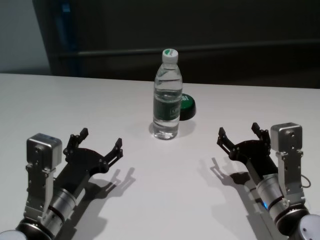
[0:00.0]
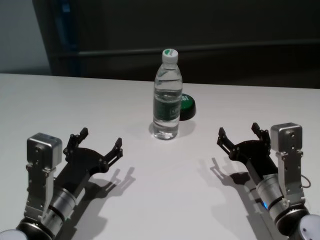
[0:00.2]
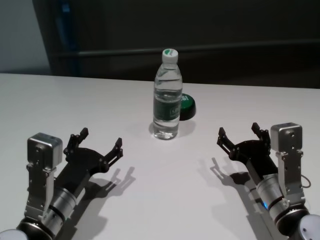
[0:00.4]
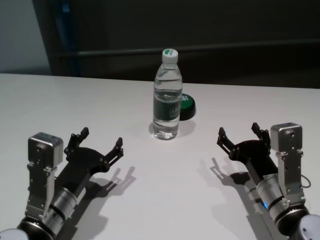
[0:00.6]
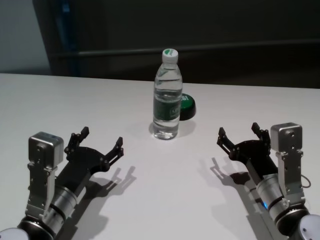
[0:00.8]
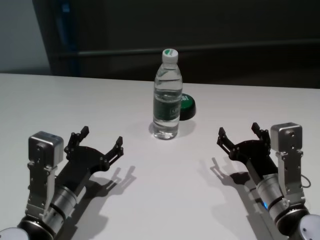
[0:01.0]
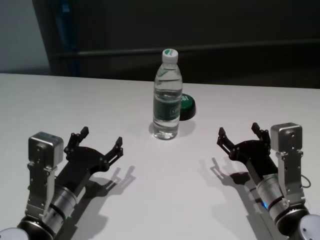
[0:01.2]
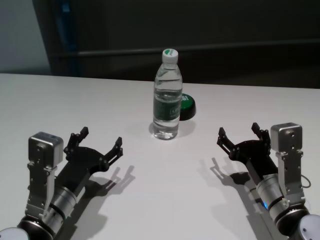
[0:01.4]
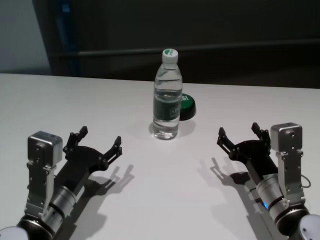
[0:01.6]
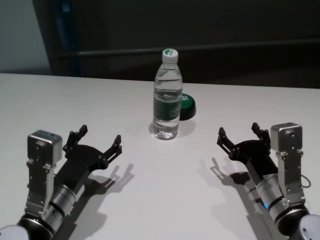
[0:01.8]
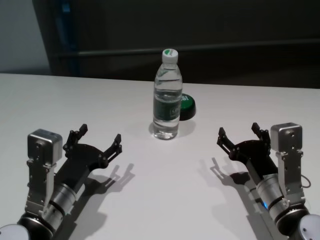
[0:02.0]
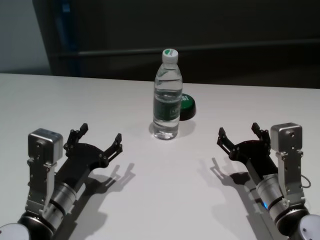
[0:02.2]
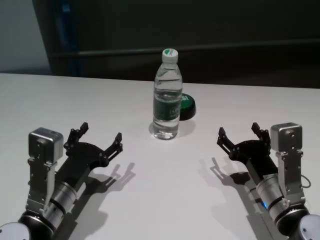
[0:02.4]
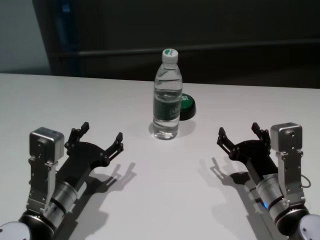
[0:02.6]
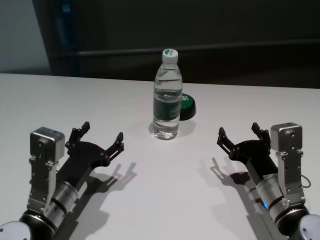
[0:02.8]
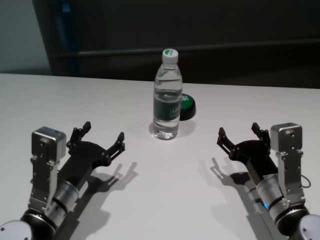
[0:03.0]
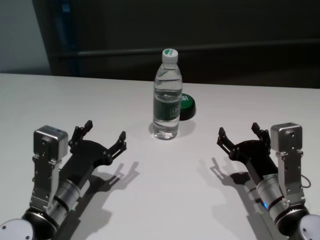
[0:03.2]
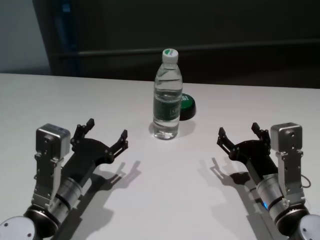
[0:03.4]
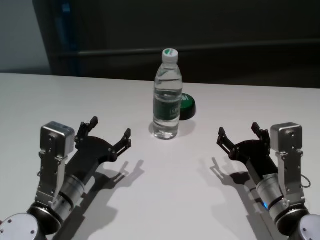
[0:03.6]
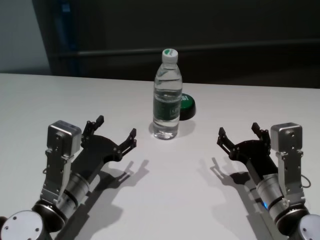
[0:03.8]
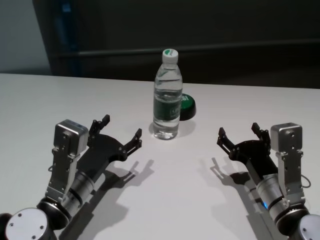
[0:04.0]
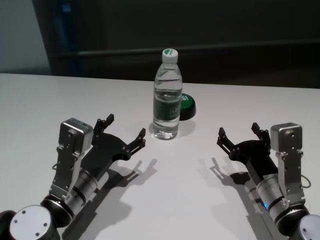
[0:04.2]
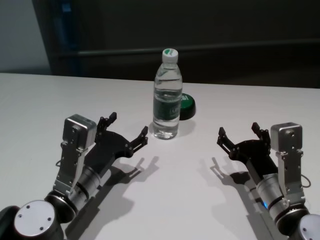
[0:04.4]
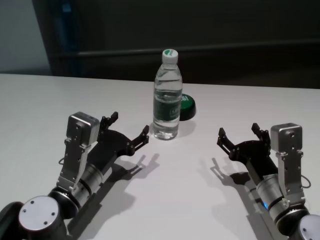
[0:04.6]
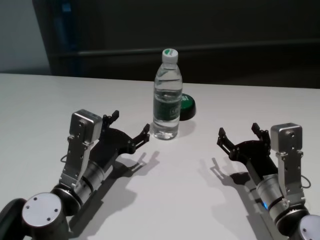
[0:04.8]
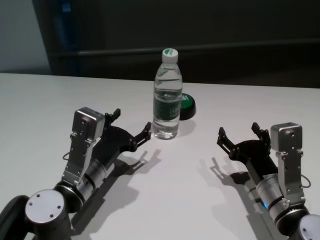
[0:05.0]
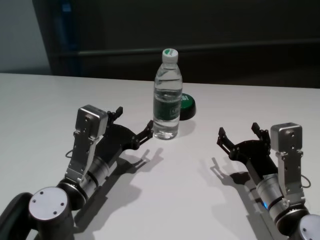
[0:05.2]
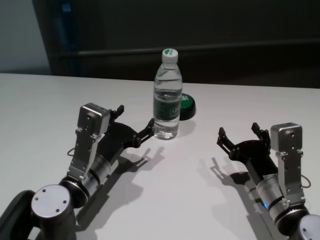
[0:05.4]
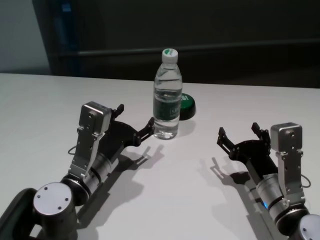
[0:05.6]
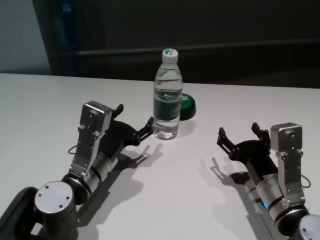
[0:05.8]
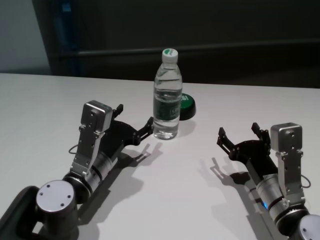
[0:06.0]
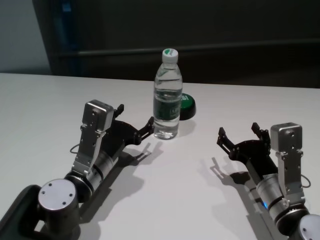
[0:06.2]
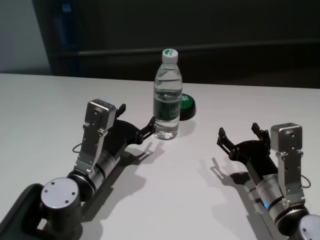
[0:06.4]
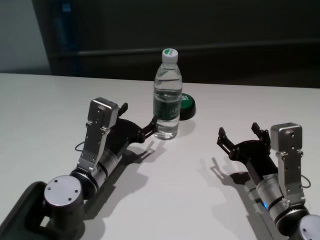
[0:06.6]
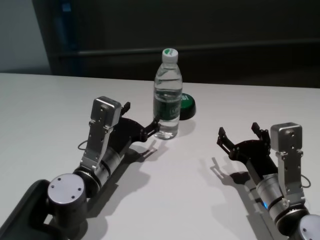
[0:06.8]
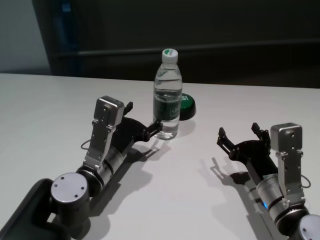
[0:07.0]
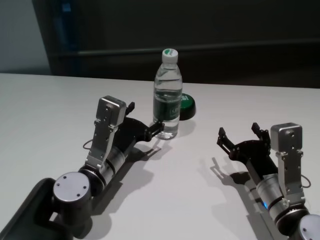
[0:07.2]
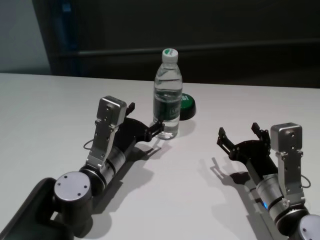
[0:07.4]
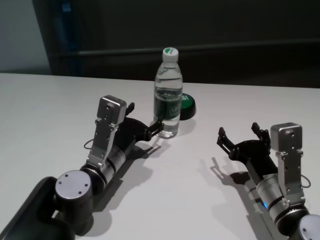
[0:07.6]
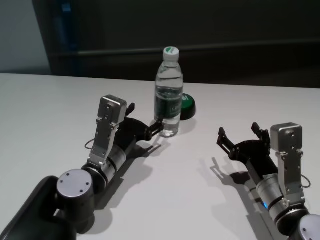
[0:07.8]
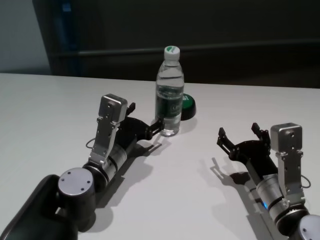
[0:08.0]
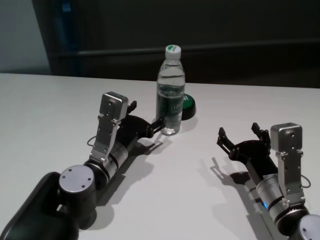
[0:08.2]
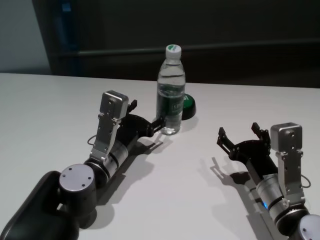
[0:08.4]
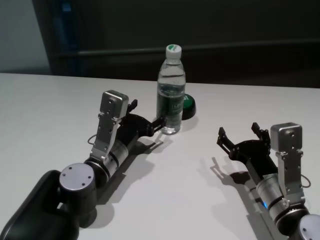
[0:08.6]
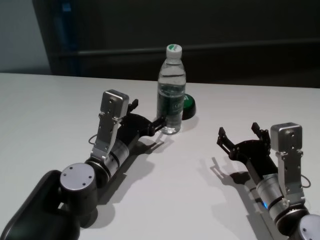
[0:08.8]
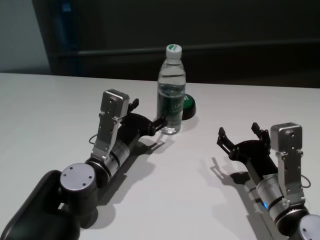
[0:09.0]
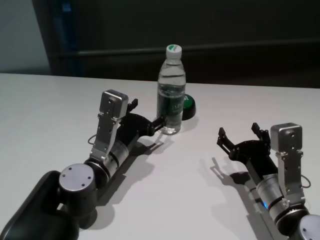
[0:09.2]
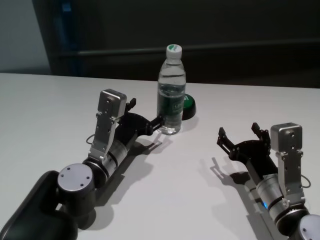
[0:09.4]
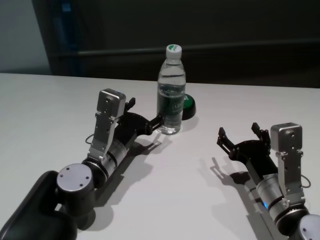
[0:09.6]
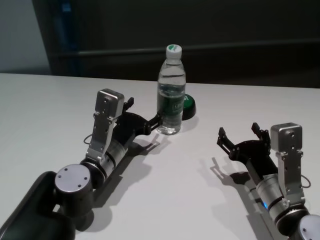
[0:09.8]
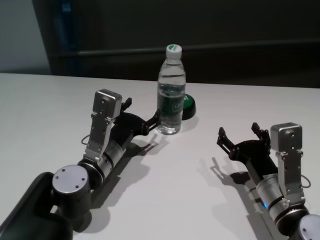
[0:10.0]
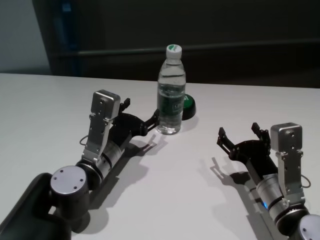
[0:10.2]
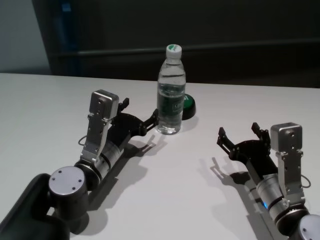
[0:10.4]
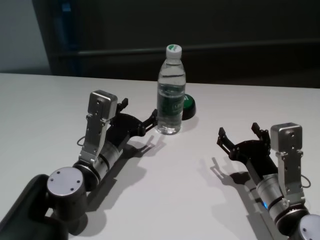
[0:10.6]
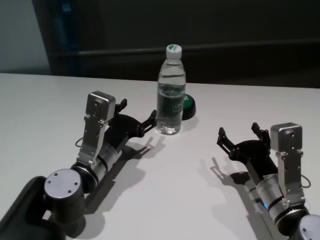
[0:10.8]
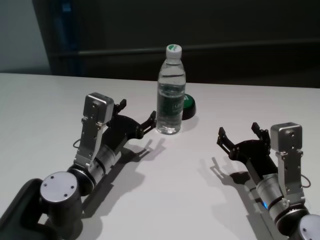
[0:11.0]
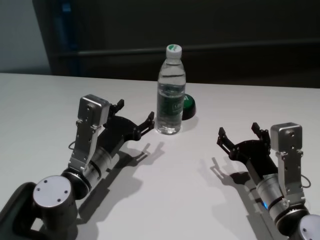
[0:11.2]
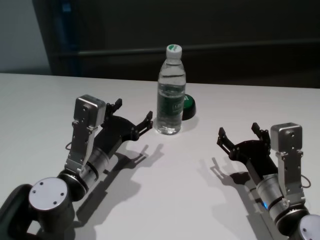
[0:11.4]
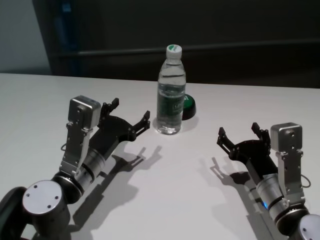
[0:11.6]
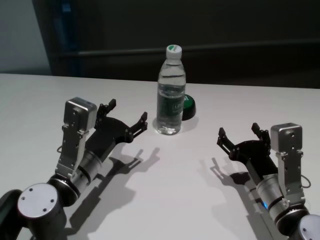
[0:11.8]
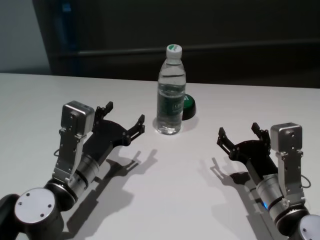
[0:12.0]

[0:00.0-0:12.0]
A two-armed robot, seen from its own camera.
Task of the whole recording: return to a safe position after touching an obstacle with your arm on the white table.
Step, 0:00.0 to 0:10.6: Touch the bottle with left gripper.

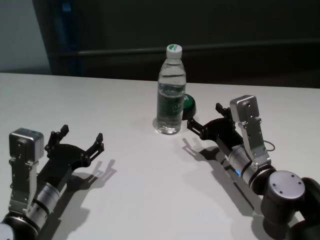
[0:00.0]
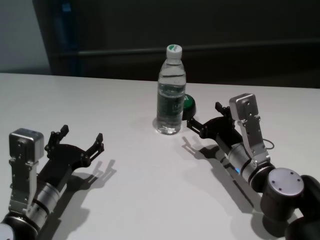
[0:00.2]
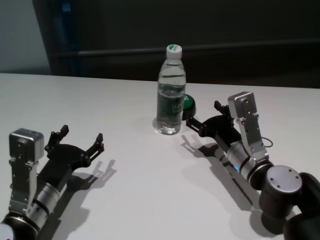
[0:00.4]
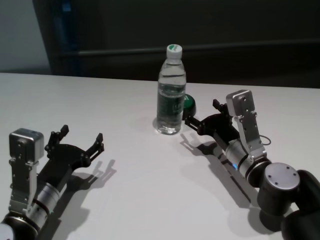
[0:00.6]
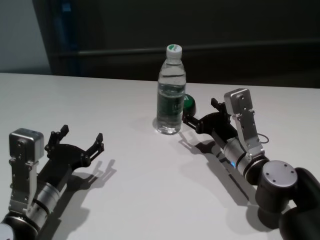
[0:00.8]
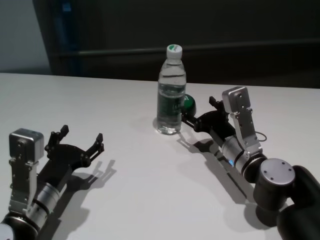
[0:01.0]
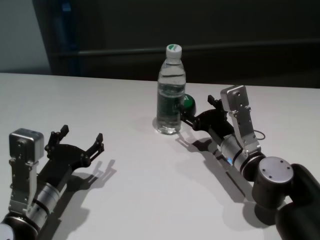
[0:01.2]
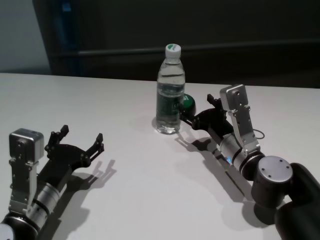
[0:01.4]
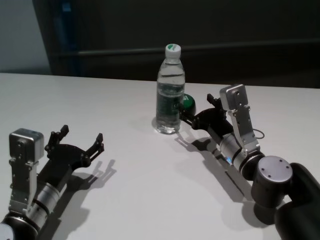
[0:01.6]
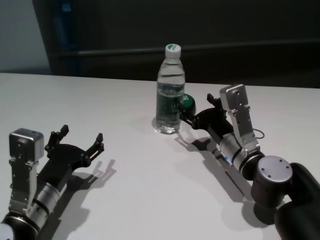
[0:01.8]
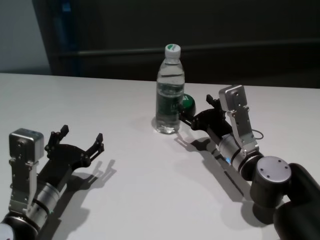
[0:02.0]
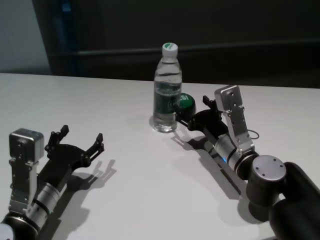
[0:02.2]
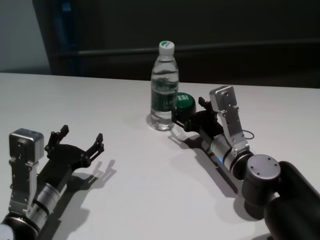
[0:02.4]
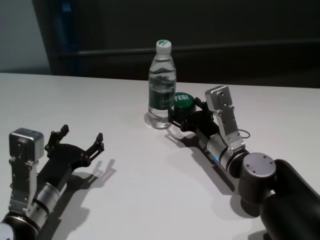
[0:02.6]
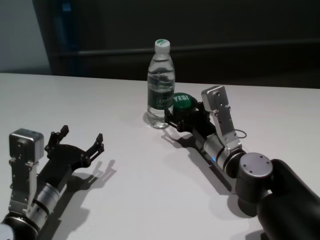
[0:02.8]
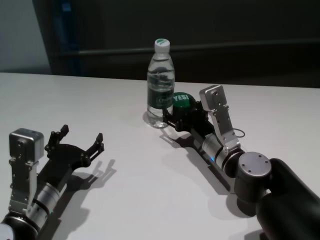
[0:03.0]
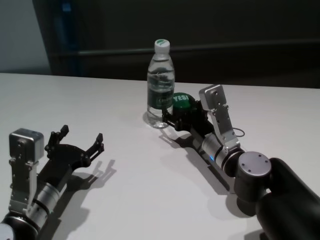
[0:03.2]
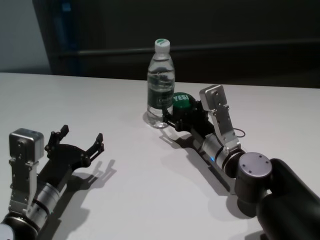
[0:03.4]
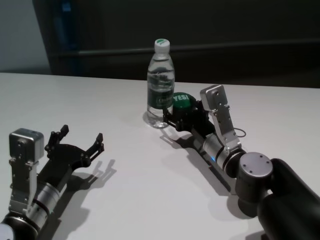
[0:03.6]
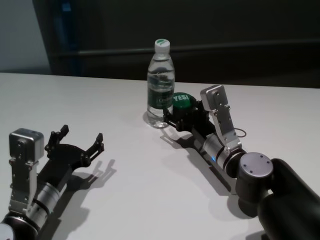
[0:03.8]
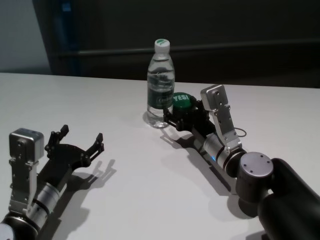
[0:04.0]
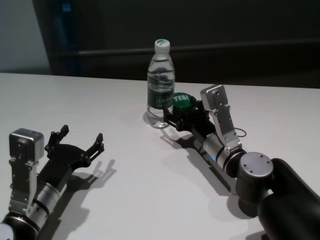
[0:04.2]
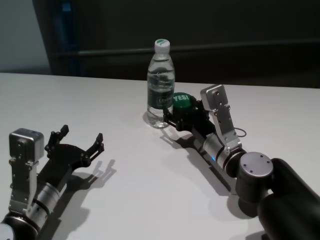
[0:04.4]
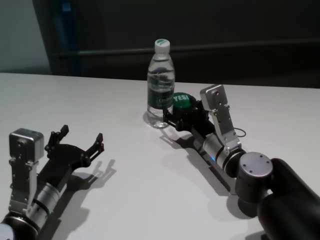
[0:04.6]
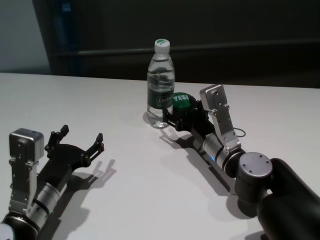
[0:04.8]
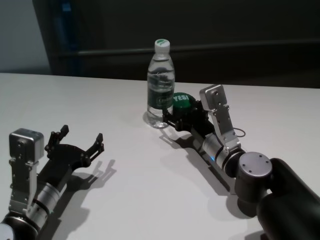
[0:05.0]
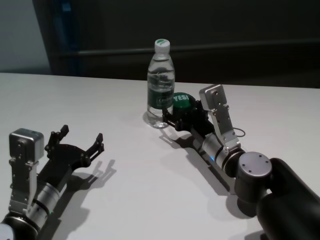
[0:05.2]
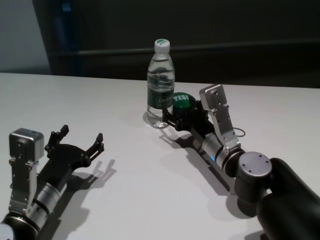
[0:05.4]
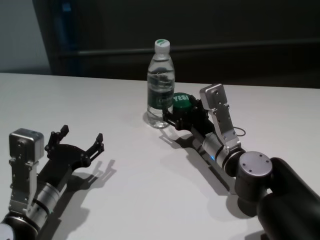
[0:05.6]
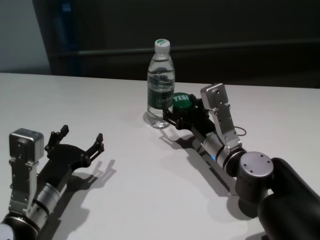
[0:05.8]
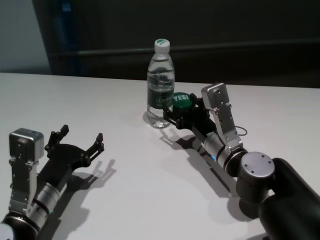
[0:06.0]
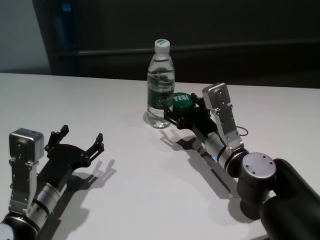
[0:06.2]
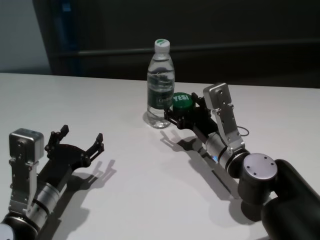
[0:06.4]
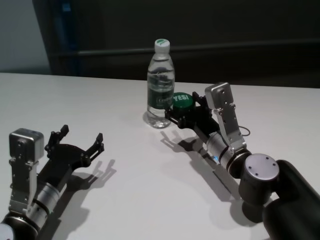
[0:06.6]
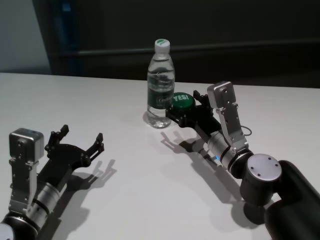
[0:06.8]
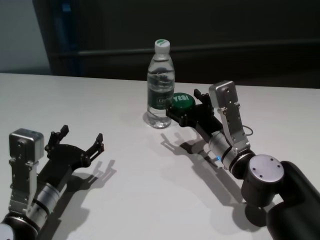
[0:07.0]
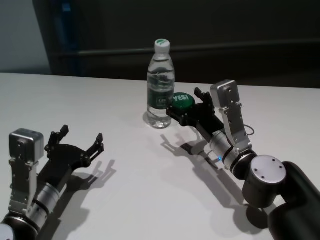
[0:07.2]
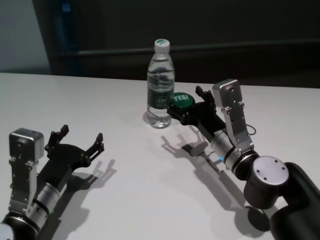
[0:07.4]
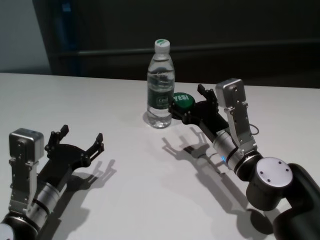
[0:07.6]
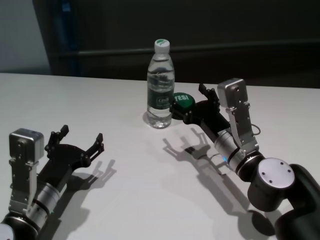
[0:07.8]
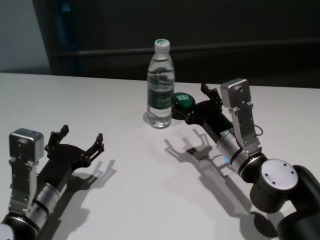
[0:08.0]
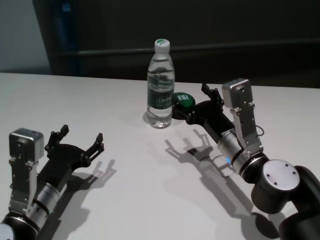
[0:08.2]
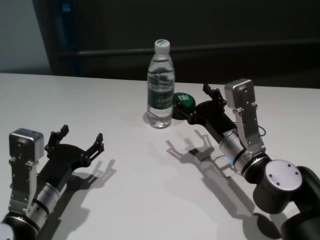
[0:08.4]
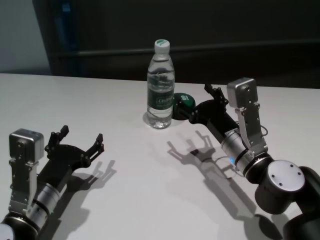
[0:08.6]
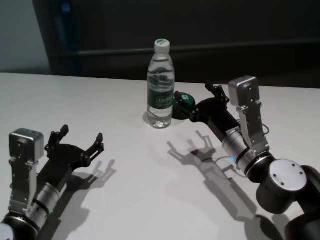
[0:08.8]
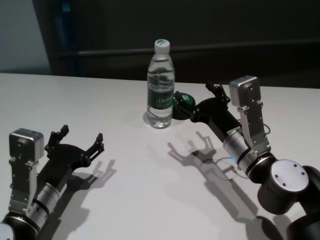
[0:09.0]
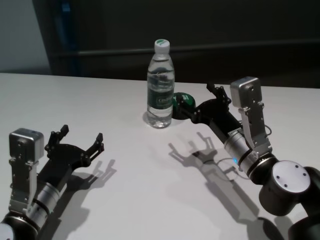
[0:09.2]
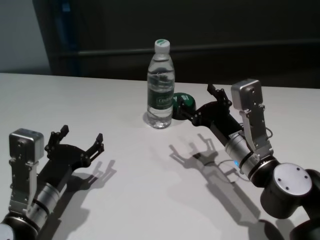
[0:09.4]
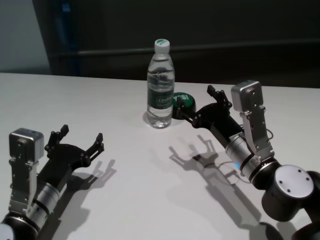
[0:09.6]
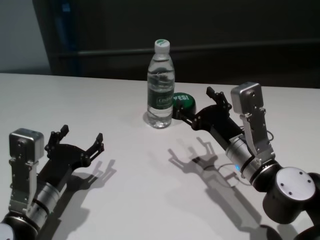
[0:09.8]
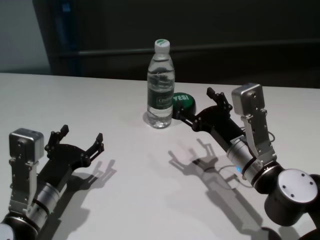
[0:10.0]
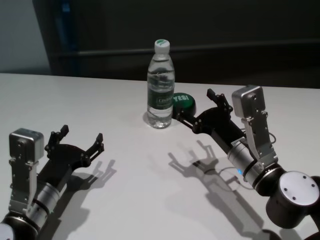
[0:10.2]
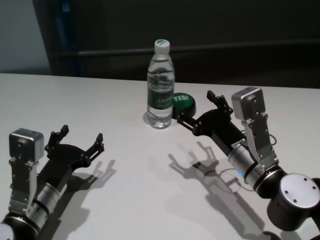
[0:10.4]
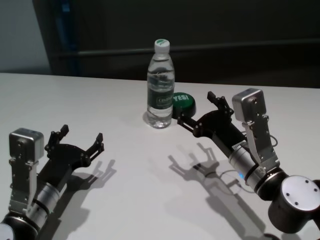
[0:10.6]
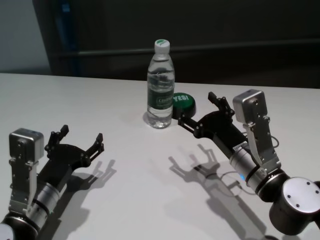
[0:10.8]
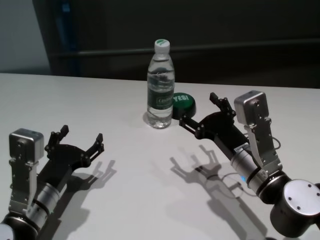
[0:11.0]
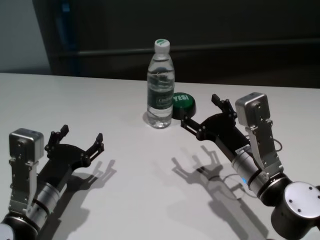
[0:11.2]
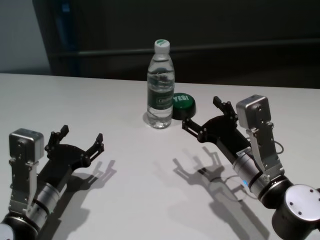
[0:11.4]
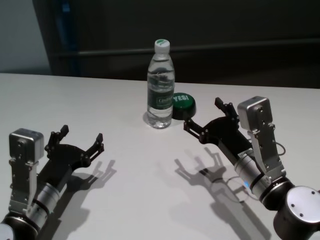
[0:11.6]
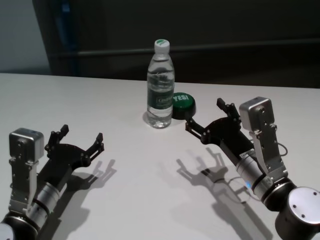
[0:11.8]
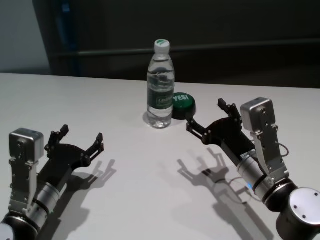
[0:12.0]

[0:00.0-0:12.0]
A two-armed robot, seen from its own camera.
Task of the whole recording: return to a safe position after touching an obstacle with your arm on the white table.
Step, 0:00.0 to 0:07.8: Touch the bottle with right gripper.
